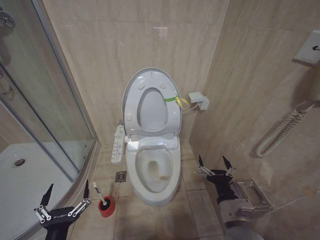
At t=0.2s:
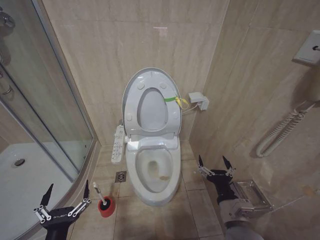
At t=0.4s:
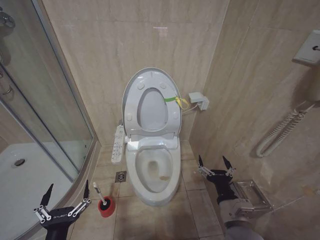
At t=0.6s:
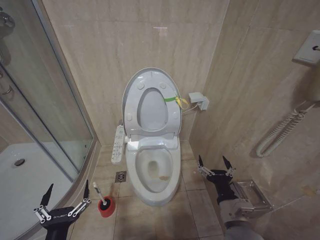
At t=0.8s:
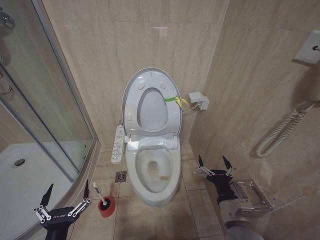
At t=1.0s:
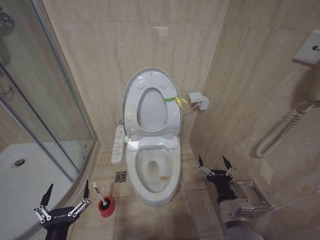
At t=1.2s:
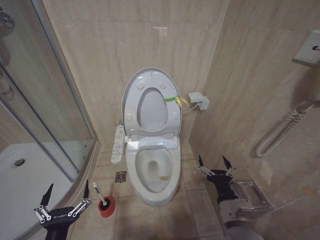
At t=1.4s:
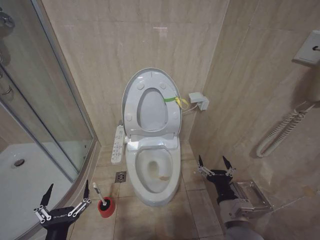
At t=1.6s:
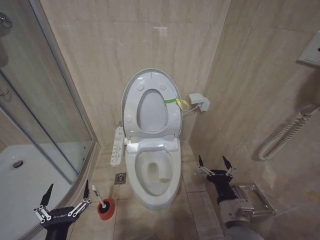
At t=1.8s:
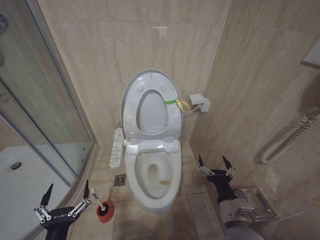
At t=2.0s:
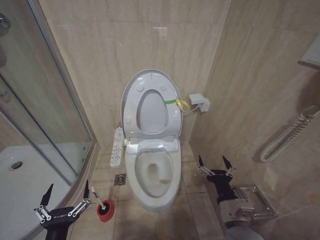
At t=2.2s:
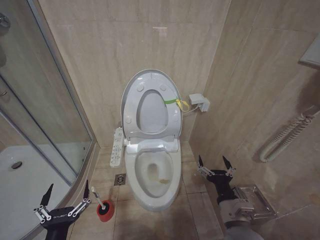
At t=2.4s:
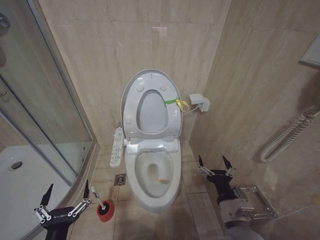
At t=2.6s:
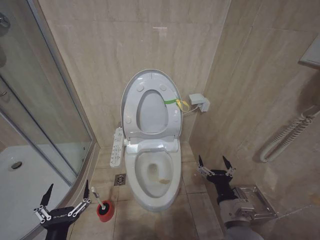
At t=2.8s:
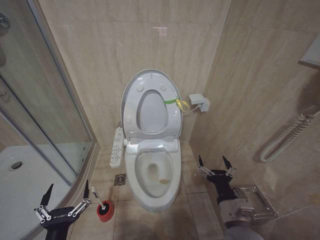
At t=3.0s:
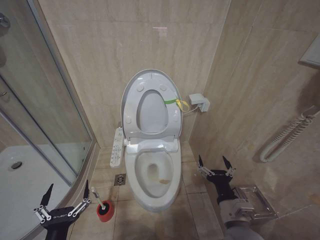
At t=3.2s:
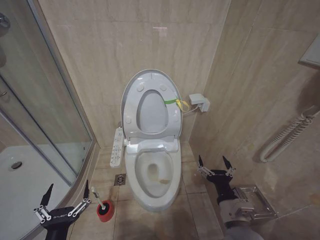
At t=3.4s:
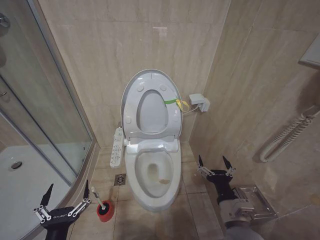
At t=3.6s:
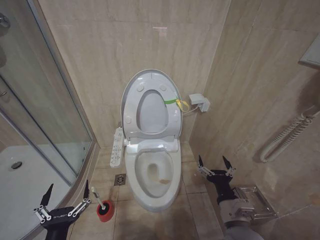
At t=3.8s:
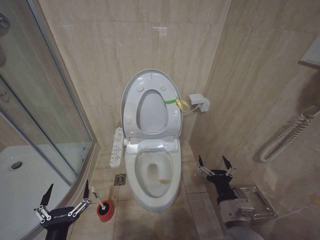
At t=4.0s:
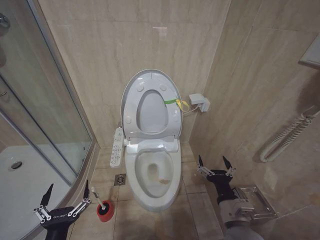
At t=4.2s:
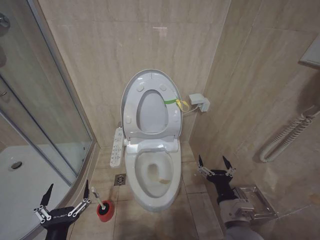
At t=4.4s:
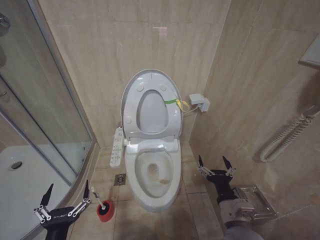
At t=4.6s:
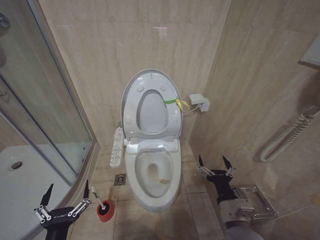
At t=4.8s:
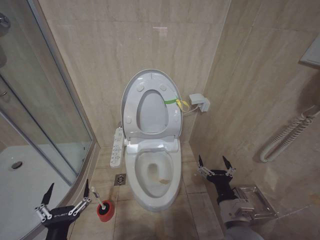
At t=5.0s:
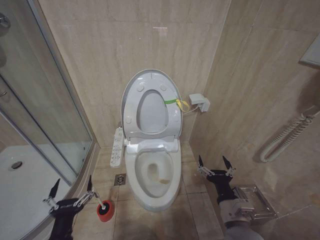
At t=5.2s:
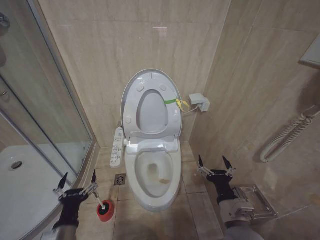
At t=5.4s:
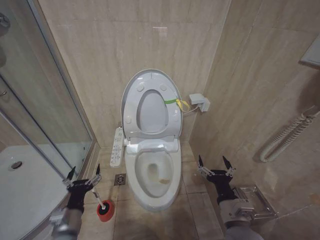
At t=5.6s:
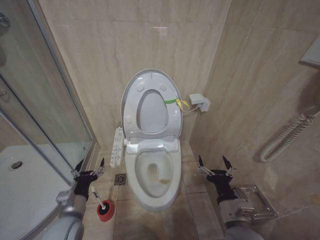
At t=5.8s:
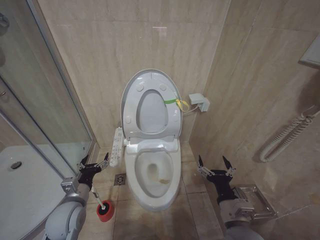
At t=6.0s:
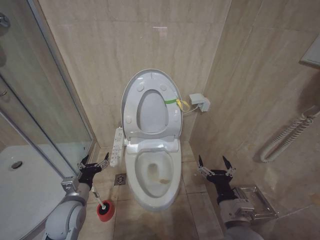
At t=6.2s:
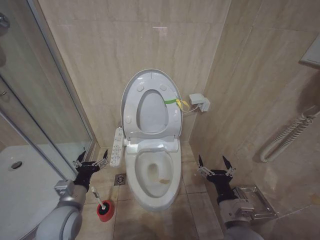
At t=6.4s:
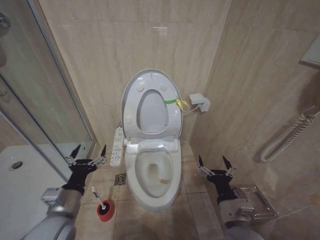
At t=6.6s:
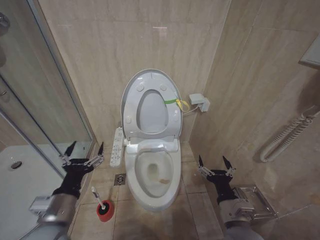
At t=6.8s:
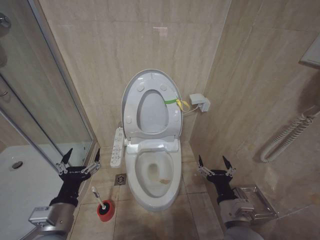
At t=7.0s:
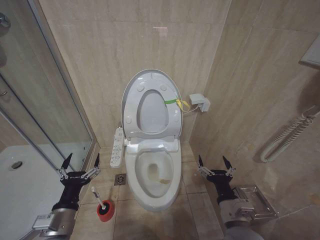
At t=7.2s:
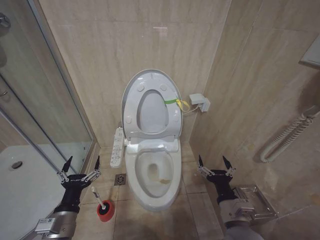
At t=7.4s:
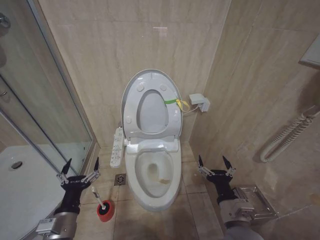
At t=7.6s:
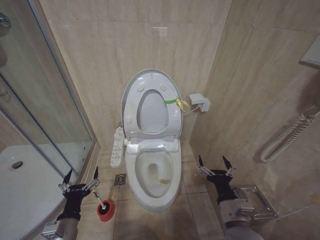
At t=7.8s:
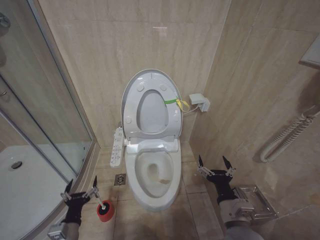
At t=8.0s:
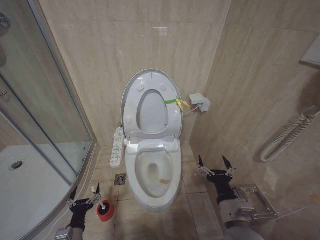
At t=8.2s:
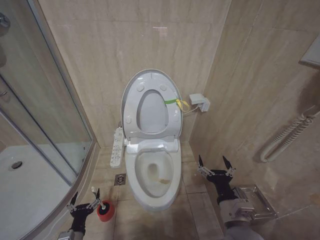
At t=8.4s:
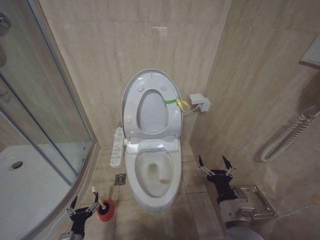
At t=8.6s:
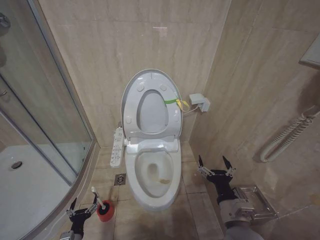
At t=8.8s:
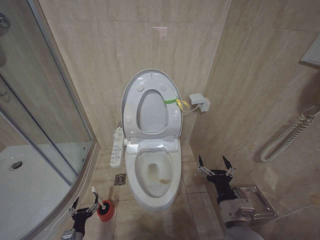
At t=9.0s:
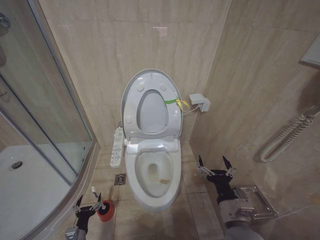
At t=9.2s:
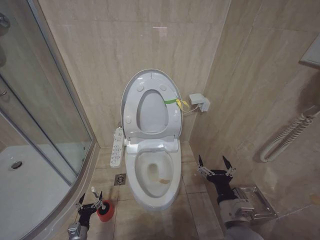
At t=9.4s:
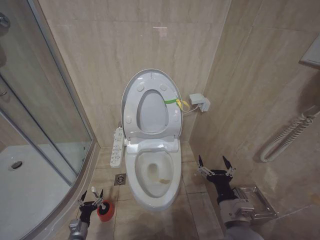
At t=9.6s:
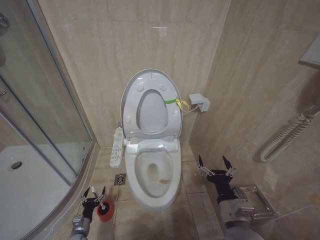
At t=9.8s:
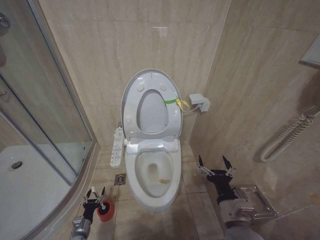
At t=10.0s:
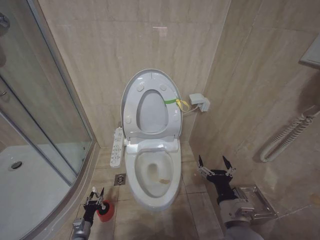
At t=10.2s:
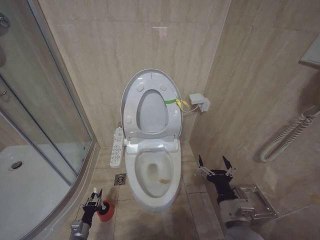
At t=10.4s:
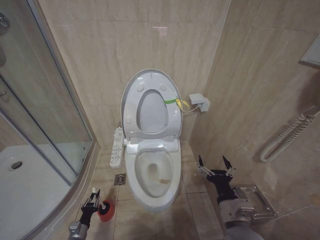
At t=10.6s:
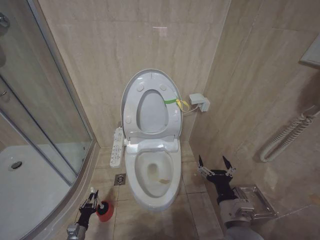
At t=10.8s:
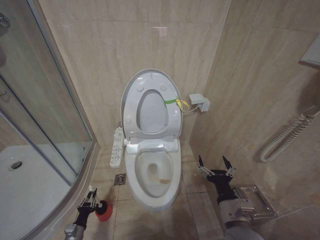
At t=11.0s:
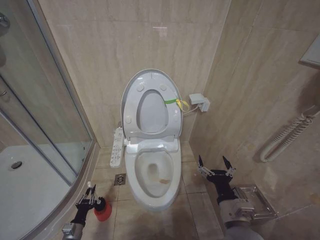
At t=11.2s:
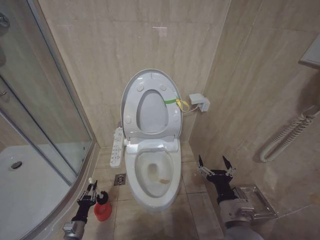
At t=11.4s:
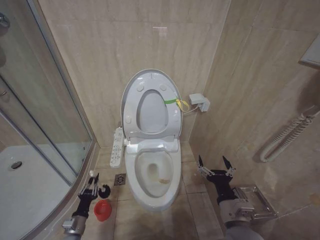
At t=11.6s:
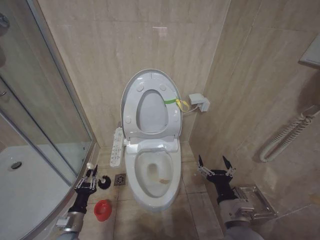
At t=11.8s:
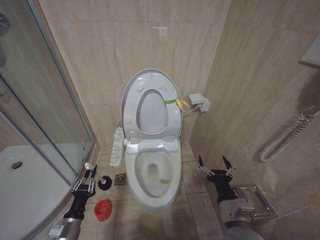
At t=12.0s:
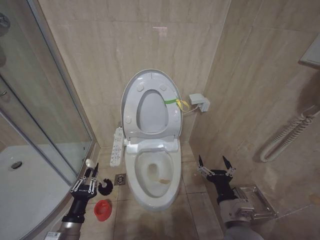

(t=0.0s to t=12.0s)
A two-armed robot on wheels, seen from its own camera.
Task of the whole recording: Open the toilet lid, clean the toilet bowl with a toilet brush, close the toilet lid, and flush.
t=0.0s - t=4.4s: Both grippers stay put.
t=4.4s - t=6.0s: The left gripper travels forward by approximately 20 cm.
t=6.0s - t=7.6s: The left gripper travels backward by roughly 10 cm, and travels upward and back again, about 10 cm each way.
t=7.6s - t=9.0s: The left gripper goes roughly 25 cm downward.
t=9.0s - t=10.4s: The left gripper changes place by some 5 cm, and closes up.
t=10.4s - t=12.0s: The left gripper heads upward, covering approximately 20 cm.

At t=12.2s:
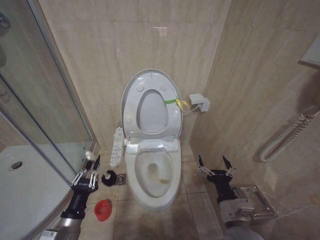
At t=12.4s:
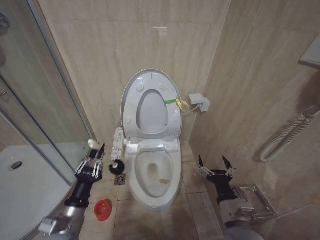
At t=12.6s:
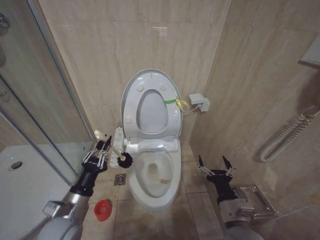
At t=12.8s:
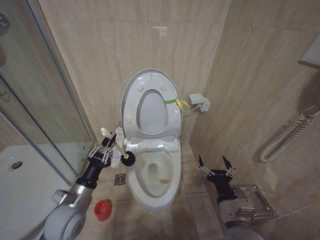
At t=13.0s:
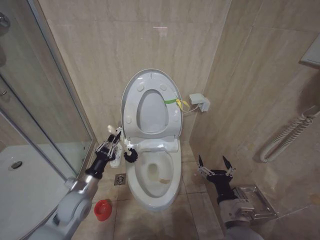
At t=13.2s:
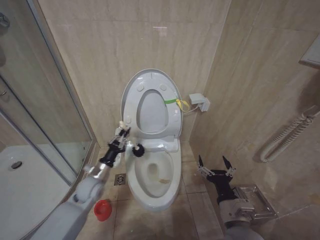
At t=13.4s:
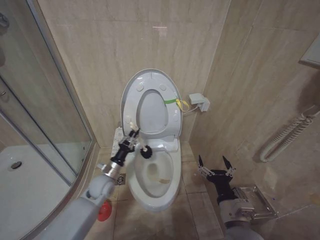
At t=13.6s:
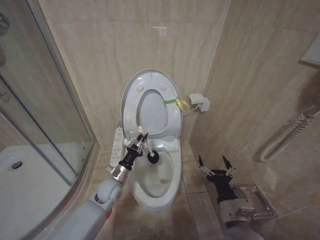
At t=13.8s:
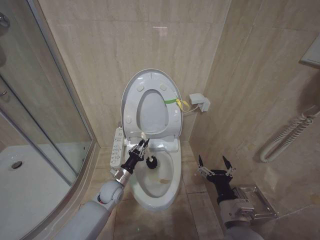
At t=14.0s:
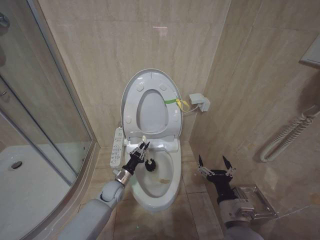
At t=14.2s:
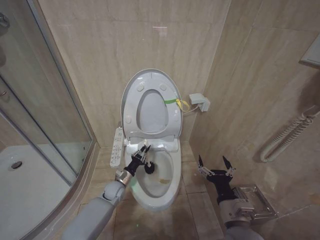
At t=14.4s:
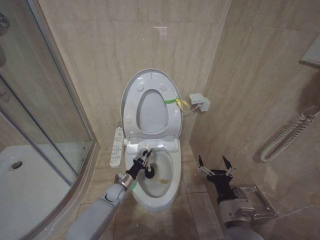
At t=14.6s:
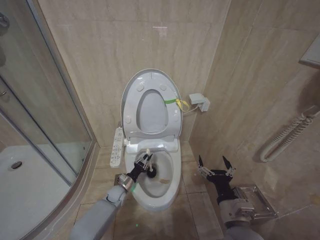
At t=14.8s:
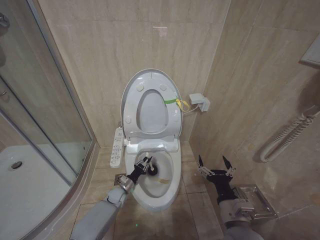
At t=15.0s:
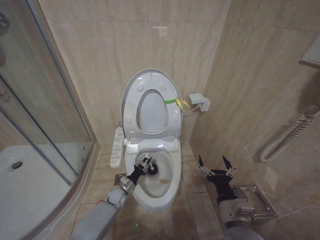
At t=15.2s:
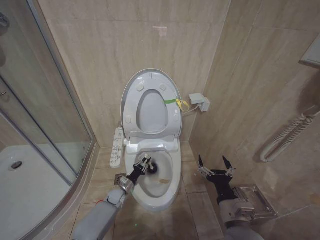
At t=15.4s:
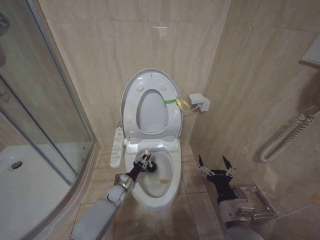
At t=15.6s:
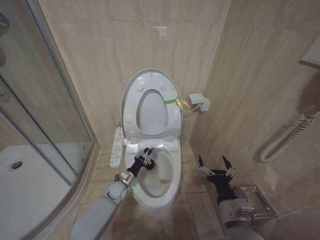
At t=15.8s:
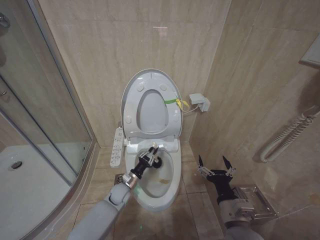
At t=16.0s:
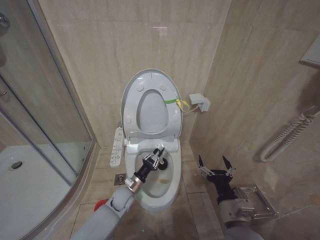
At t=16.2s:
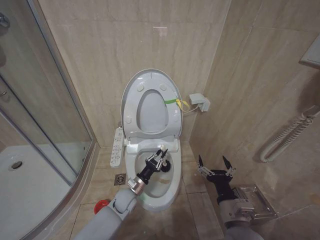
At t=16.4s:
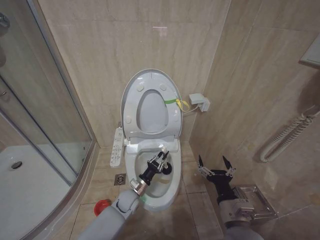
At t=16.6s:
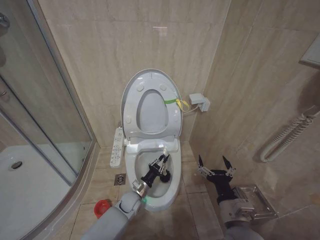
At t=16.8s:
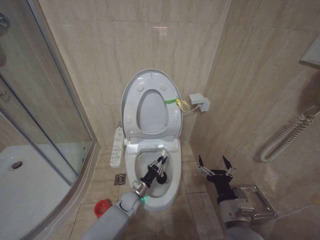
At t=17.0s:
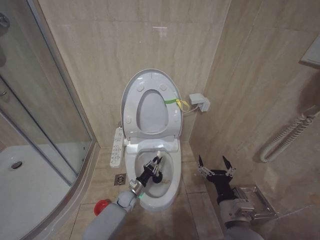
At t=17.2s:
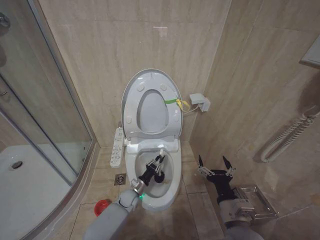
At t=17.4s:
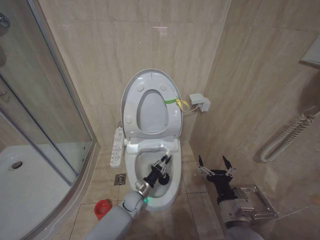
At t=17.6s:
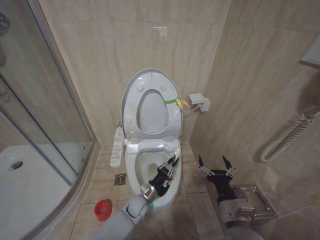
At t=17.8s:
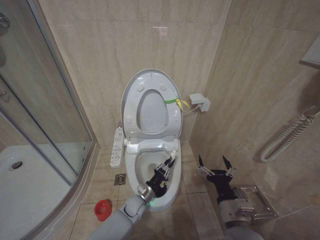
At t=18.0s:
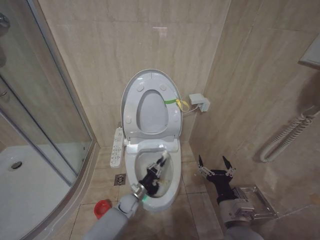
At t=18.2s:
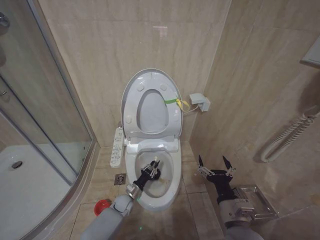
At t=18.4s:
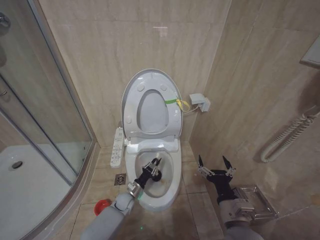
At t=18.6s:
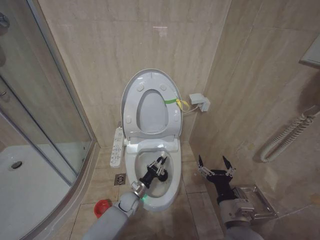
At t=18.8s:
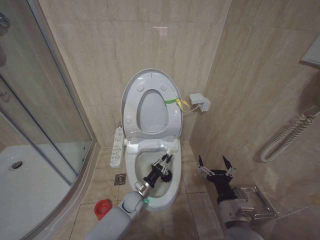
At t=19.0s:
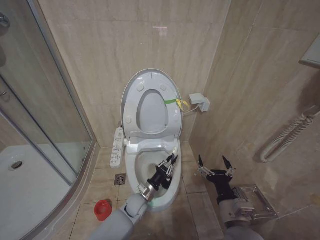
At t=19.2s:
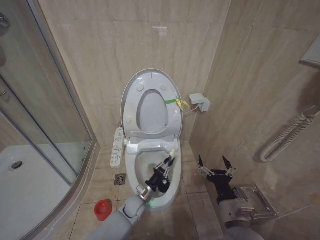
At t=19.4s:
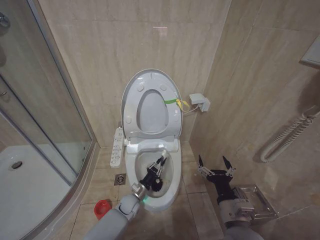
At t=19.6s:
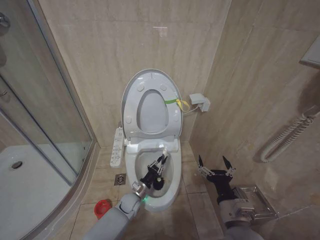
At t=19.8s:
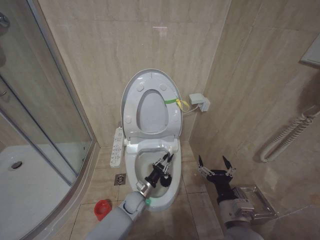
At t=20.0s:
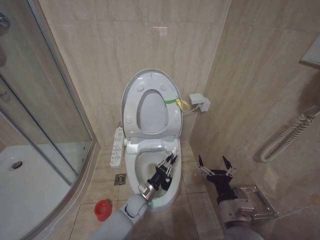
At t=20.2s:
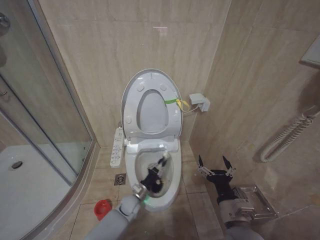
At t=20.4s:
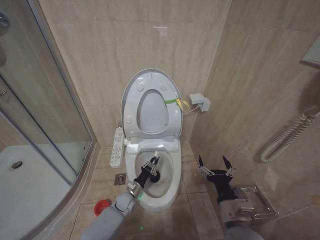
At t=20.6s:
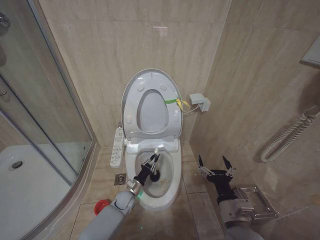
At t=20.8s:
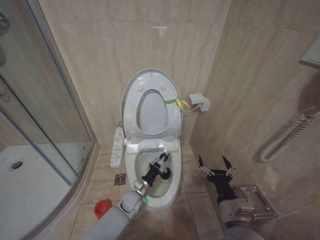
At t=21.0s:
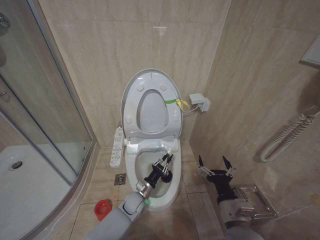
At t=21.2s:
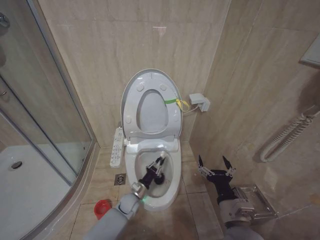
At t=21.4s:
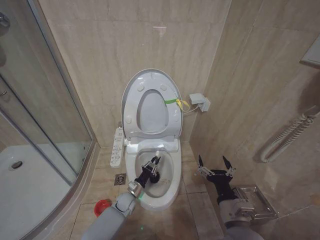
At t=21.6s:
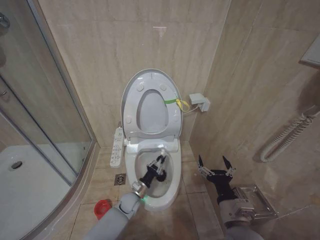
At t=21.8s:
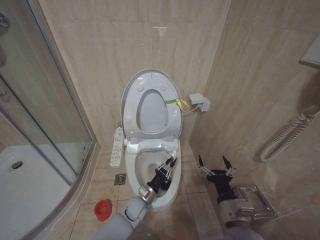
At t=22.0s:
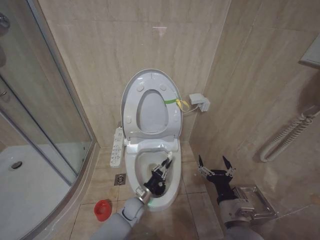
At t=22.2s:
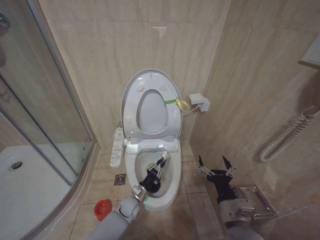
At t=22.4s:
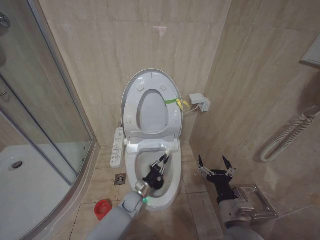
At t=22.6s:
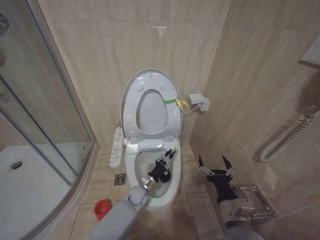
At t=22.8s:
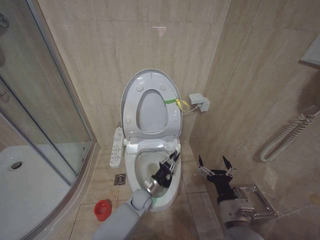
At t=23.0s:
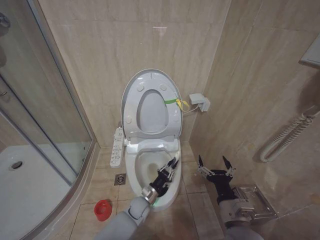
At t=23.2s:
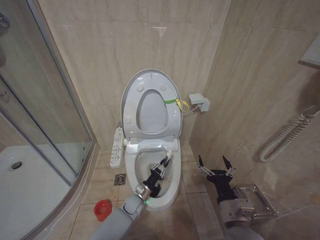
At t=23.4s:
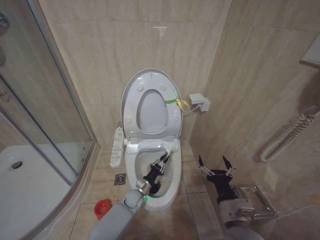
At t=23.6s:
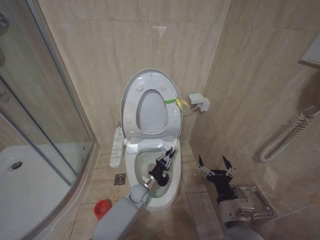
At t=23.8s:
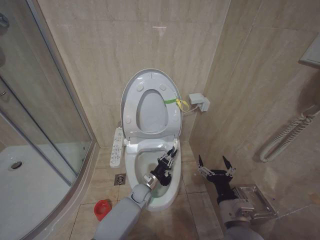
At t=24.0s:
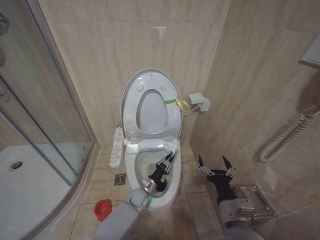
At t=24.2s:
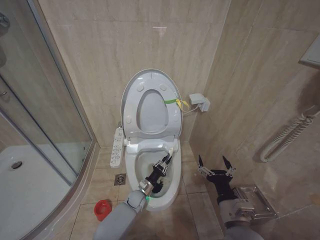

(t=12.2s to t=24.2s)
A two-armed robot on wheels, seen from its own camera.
Task of the whole recording: Open the toilet lid, clean the toilet bowl with a toilet brush, close the toilet lid, and flush.
t=12.2s - t=13.8s: The left gripper is displaced forward and to the right by about 25 cm.
t=13.8s - t=15.2s: The left gripper shifts roughly 15 cm downward.
t=15.2s - t=16.6s: The left gripper heads to the right and upward, covering approximately 10 cm.
t=16.6s - t=18.2s: The left gripper swings up and down, approximately 5 cm each way, with 2 reversals.
t=18.2s - t=19.8s: The left gripper travels upward and to the right by some 10 cm.
t=21.2s - t=22.6s: The grippers stay close to where they were, moving slightly.
t=22.6s - t=24.2s: The left gripper swings up and down, roughly 5 cm each way, with 2 reversals.
